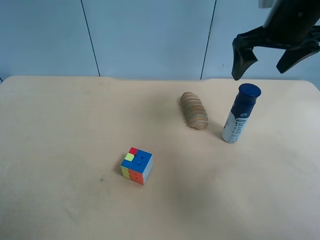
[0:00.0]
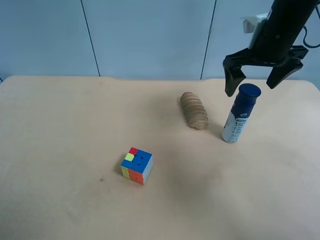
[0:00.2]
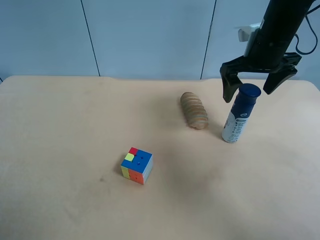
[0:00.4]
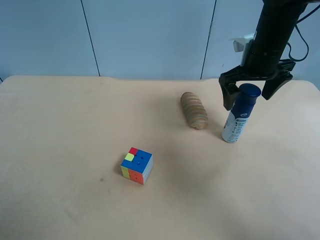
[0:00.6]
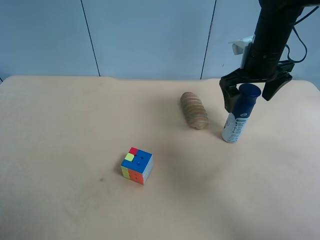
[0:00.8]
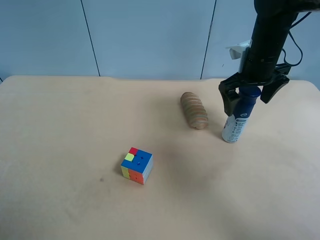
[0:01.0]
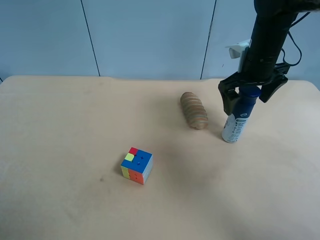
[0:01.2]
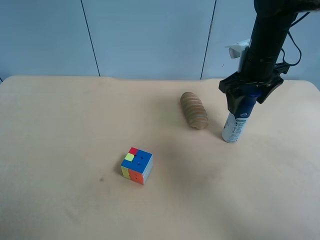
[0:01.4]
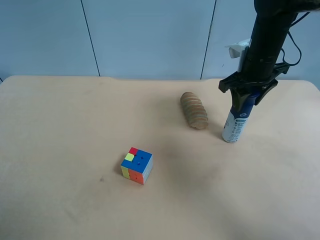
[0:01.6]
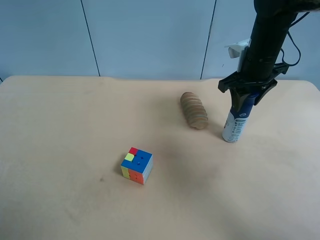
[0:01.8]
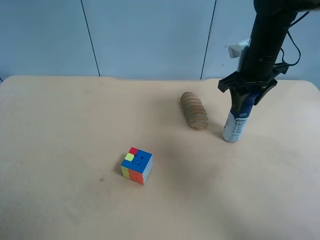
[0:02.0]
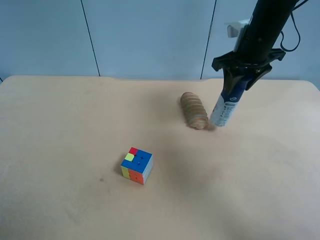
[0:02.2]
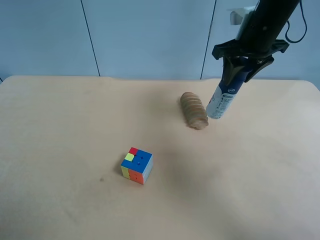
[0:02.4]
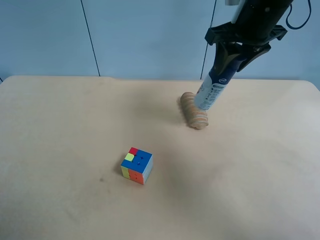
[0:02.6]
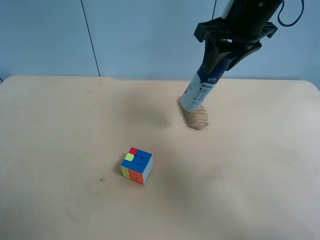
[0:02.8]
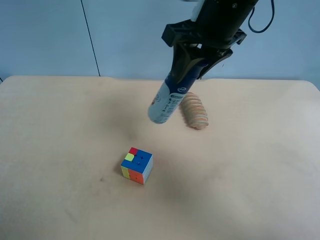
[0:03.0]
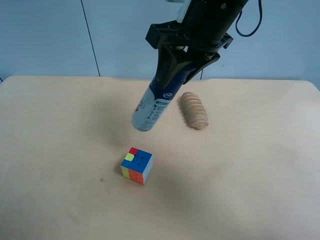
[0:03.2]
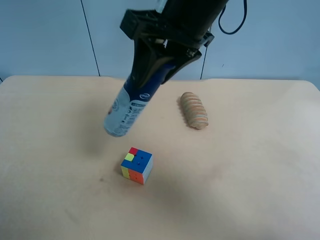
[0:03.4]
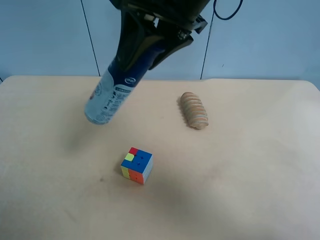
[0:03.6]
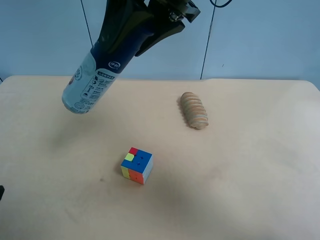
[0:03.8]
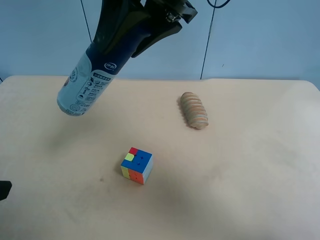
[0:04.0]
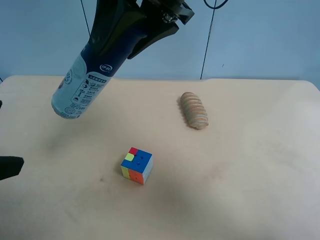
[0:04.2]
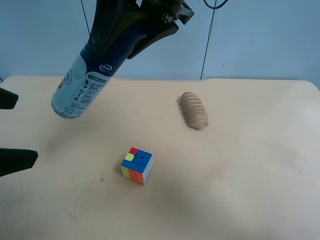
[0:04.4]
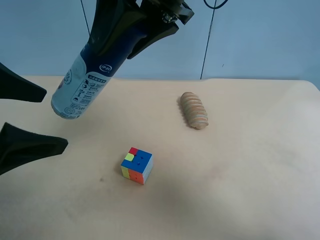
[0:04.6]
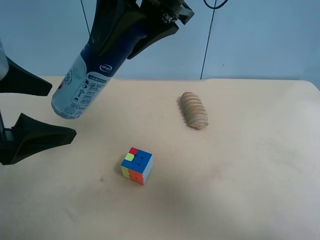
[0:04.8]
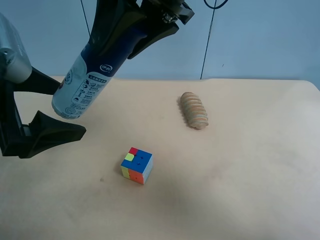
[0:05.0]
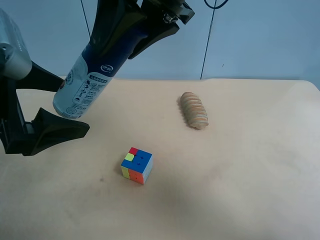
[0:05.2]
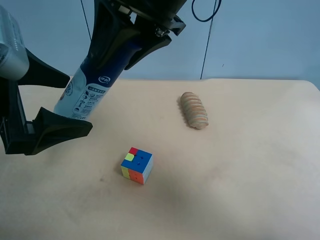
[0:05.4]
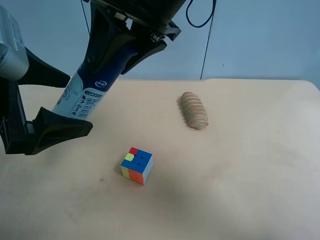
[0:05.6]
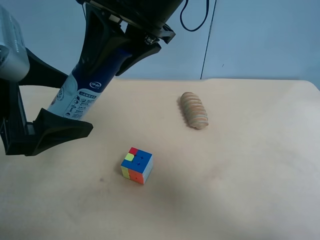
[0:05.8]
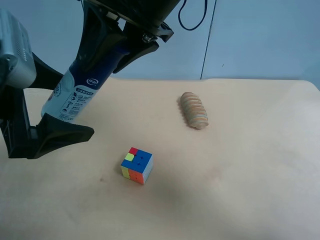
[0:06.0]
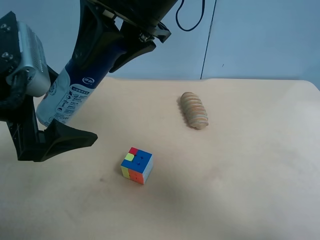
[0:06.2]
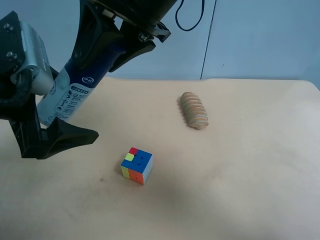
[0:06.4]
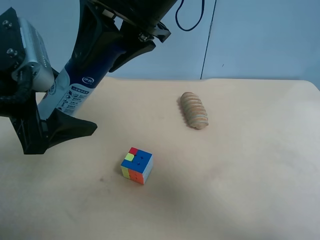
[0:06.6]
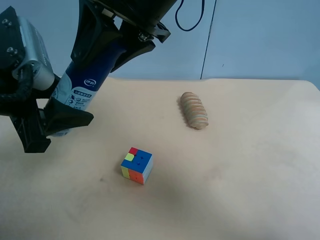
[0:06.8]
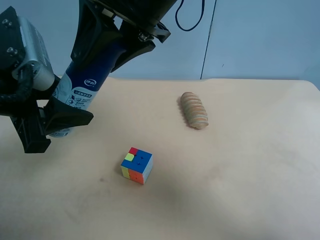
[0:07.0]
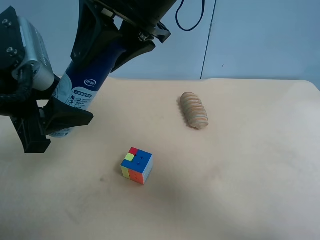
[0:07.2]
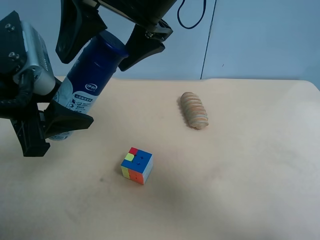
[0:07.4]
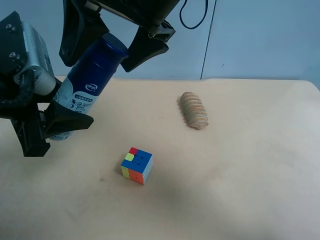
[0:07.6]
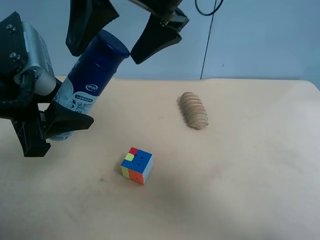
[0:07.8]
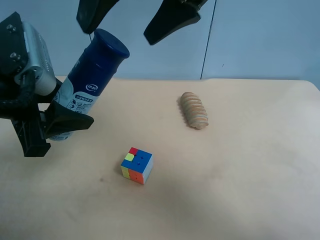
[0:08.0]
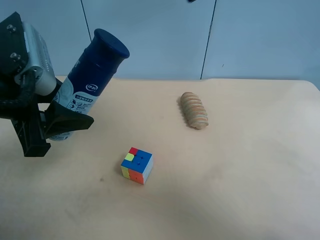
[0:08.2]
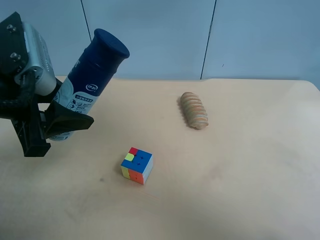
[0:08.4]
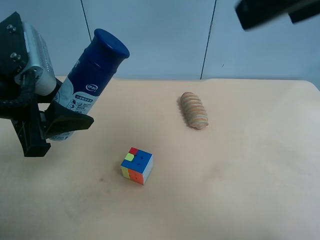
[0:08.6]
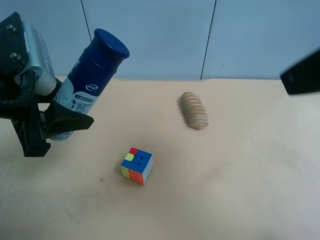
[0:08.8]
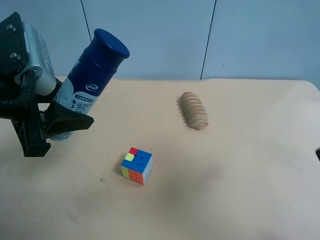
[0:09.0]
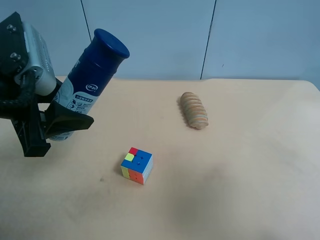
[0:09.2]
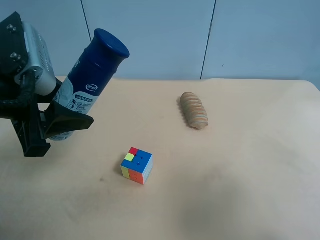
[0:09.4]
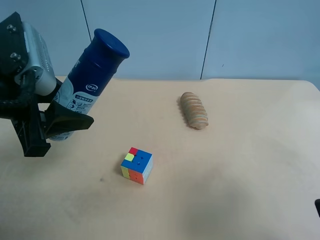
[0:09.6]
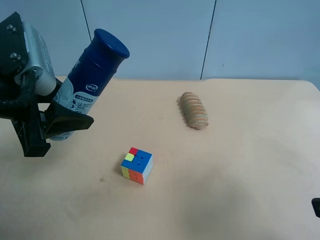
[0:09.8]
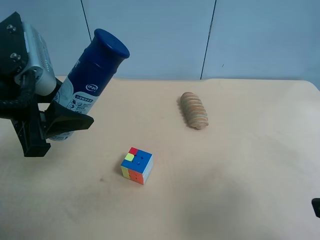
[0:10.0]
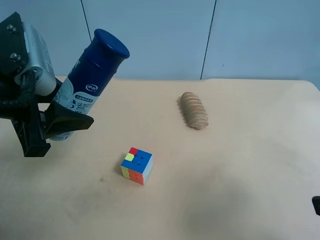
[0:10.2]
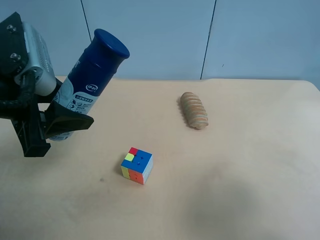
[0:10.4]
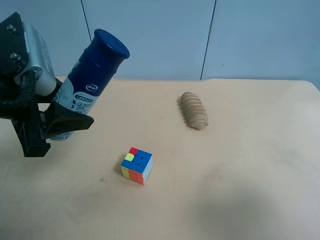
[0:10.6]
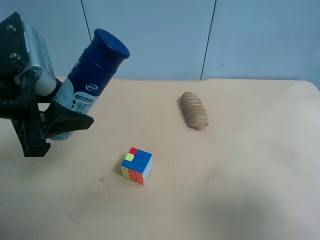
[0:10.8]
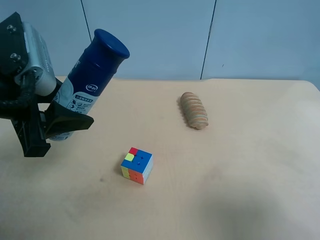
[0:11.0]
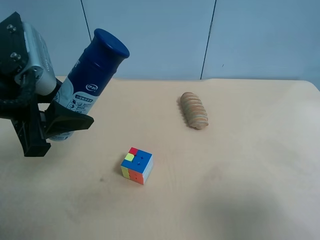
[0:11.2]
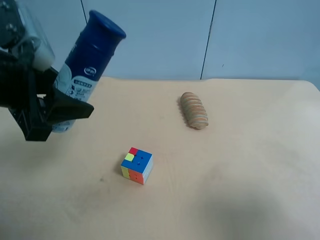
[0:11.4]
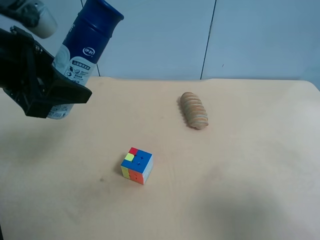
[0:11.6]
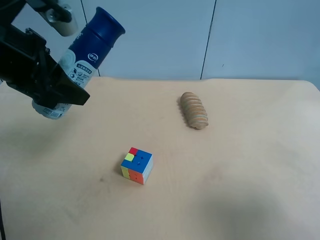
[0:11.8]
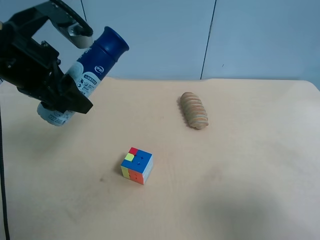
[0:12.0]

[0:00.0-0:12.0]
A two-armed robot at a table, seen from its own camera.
Task of the whole recording: use the right gripper to pick up the item and transfer it from the right gripper to the left gripper.
0:00.0 to 0:01.6: The right gripper is displaced downward by approximately 10 cm, and closes its fingers.
0:01.6 to 0:03.0: The right gripper is displaced to the left, upward and backward by some 15 cm.
0:03.0 to 0:04.4: The left gripper is displaced forward and to the right by approximately 15 cm. The right gripper moves to the left and upward, some 10 cm.
0:04.4 to 0:06.0: The left gripper heads forward, covering approximately 5 cm.
0:06.0 to 0:07.6: The right gripper opens its fingers. The left gripper closes up.
0:07.6 to 0:09.0: The right gripper goes about 30 cm to the right and backward.
0:09.0 to 0:10.4: The right gripper travels downward by some 5 cm.
0:10.4 to 0:12.0: The left gripper moves forward, approximately 5 cm.

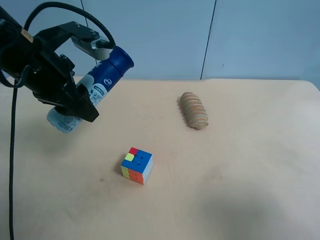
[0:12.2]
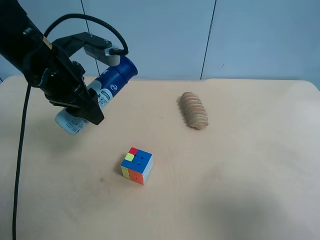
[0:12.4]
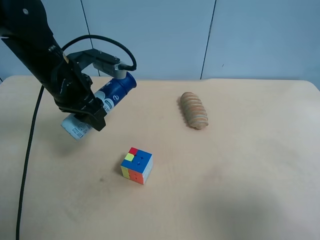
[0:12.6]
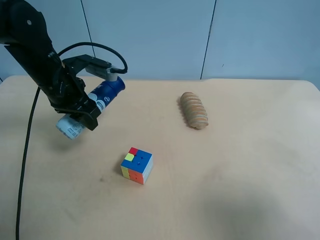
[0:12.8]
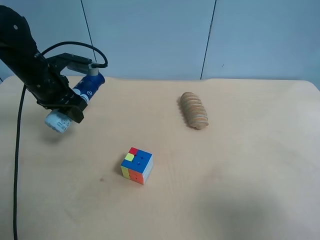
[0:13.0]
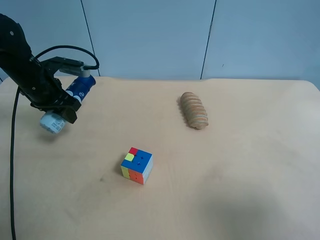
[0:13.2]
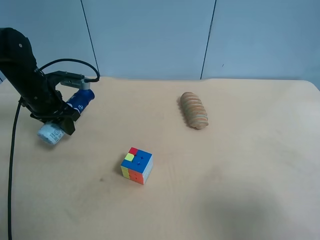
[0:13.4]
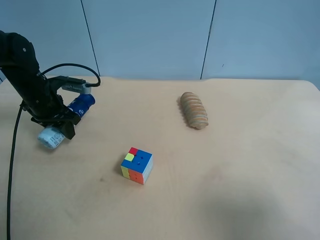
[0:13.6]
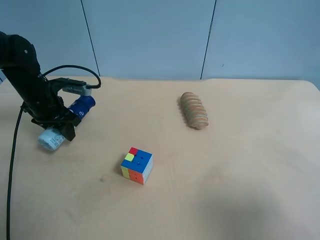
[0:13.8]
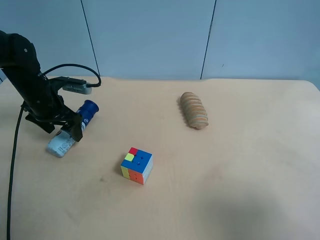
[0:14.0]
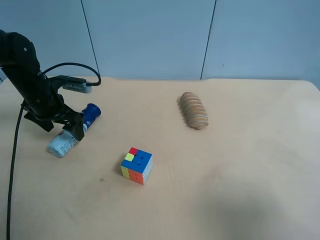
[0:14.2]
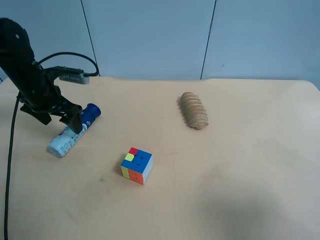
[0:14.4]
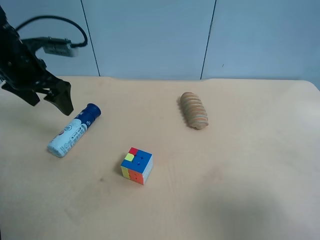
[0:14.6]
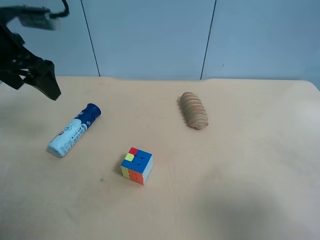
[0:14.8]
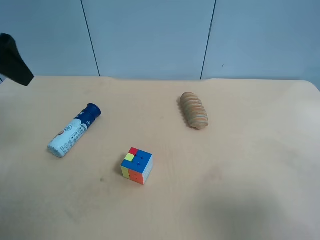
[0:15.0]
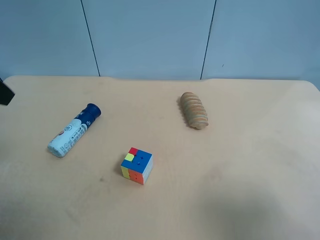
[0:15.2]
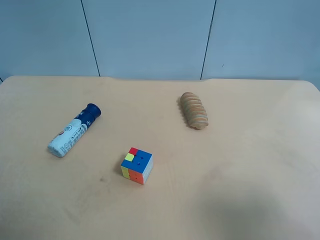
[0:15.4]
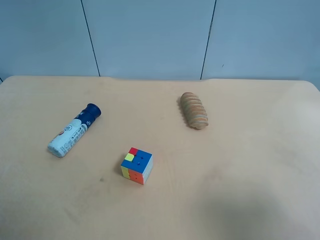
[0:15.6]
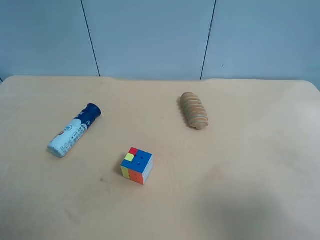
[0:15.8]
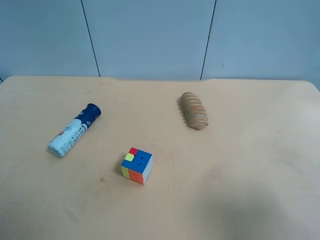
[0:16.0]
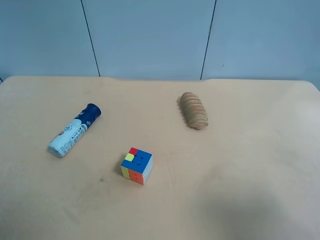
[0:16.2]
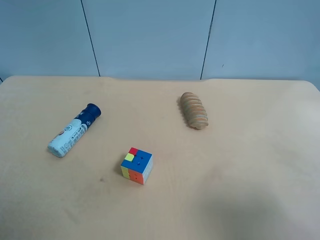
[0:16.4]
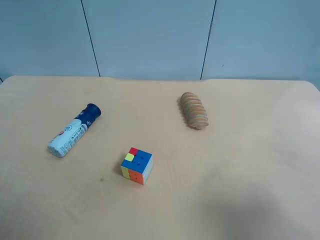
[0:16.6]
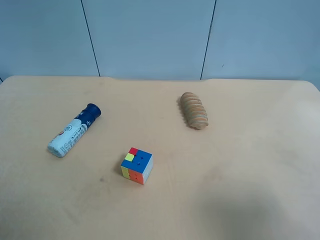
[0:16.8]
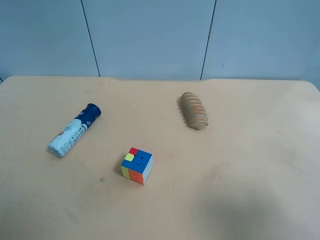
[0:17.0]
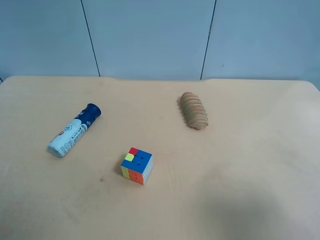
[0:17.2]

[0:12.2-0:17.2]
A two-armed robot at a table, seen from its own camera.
Task of the whole recording: use the right gripper to pick up the item and transfer it from the right gripper to the left gripper.
0:12.2 to 0:13.8: The left gripper travels downward, forward and to the left by some 20 cm.
0:13.8 to 0:15.6: The left gripper heads backward and upward, covering roughly 35 cm, and opens up.
